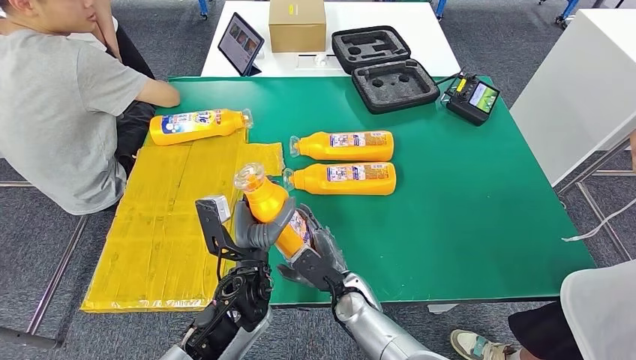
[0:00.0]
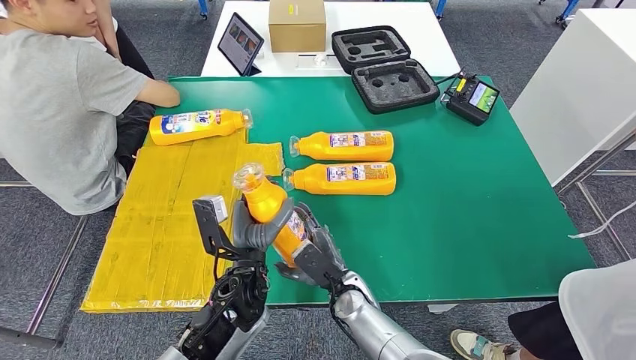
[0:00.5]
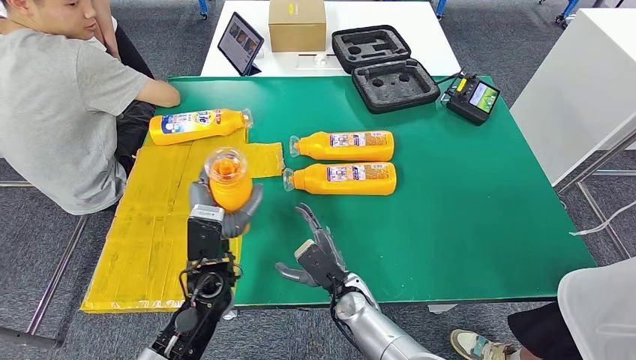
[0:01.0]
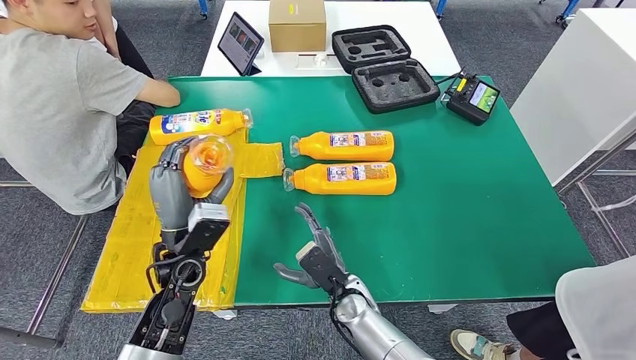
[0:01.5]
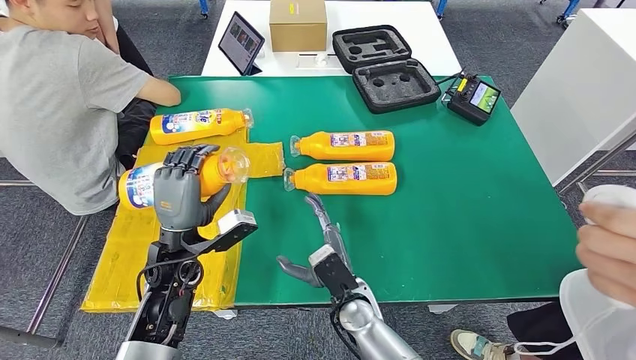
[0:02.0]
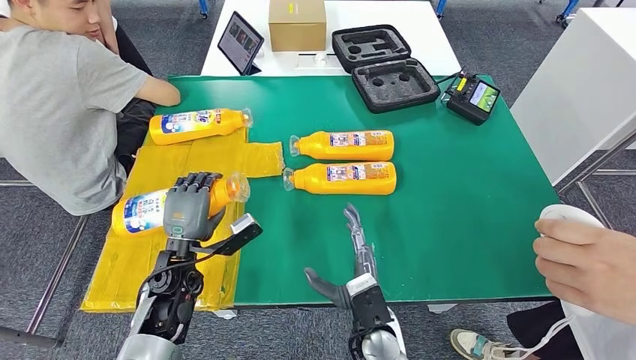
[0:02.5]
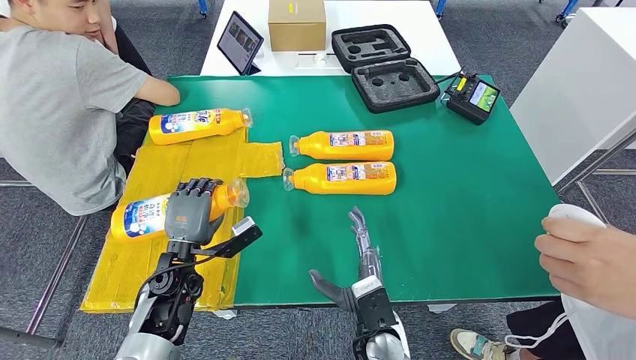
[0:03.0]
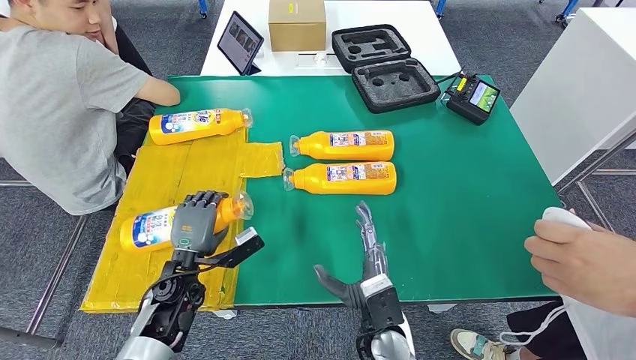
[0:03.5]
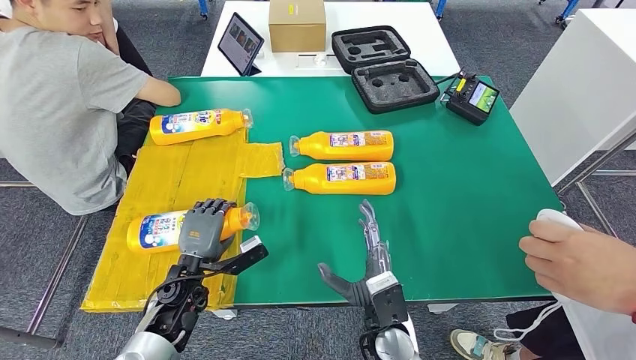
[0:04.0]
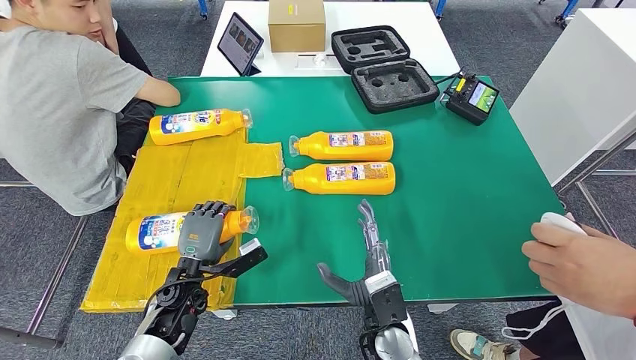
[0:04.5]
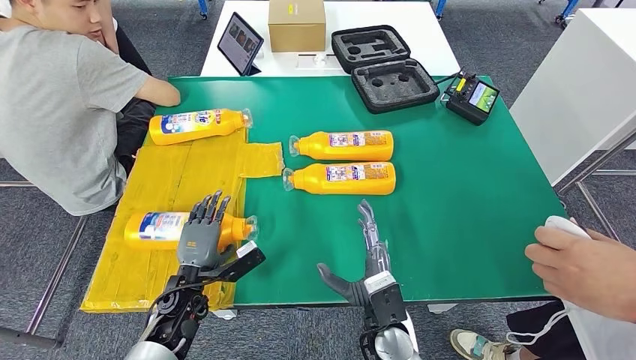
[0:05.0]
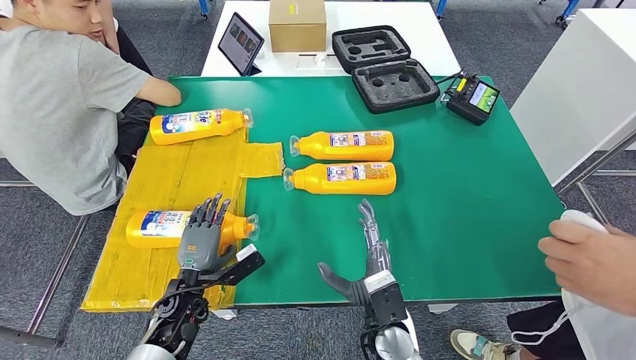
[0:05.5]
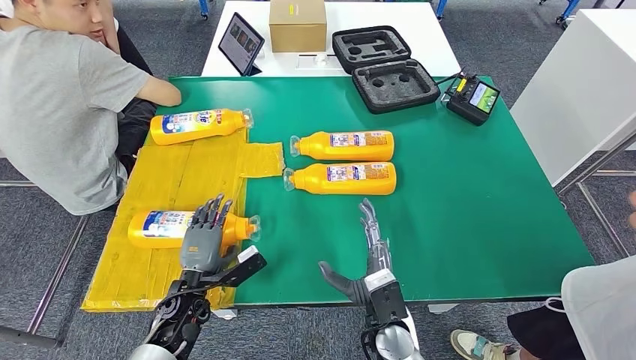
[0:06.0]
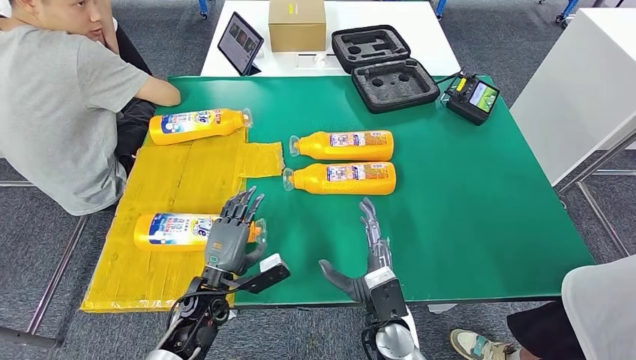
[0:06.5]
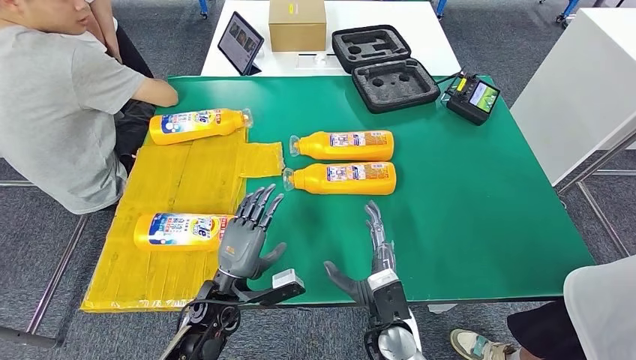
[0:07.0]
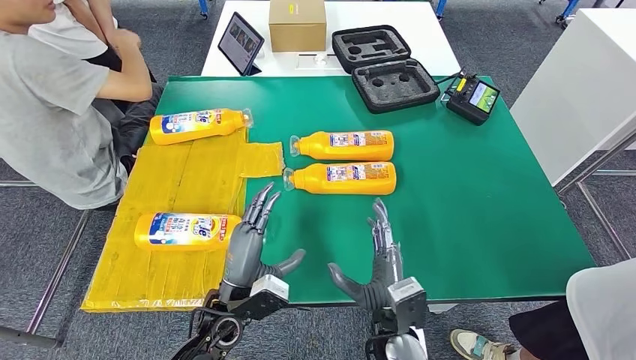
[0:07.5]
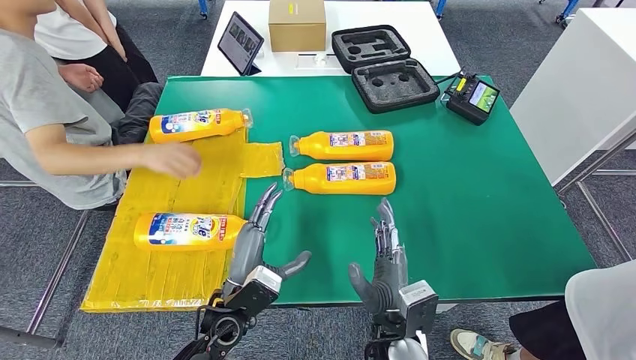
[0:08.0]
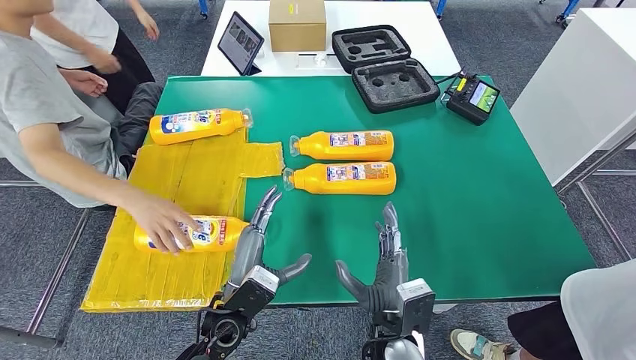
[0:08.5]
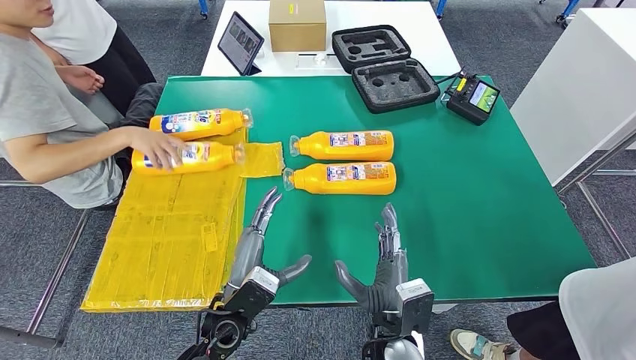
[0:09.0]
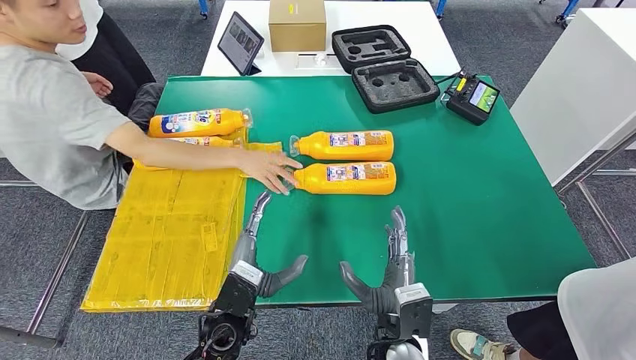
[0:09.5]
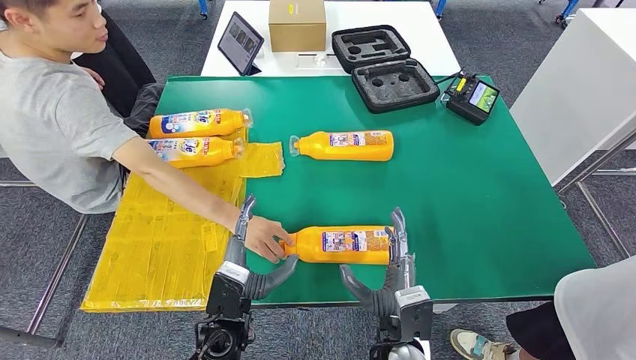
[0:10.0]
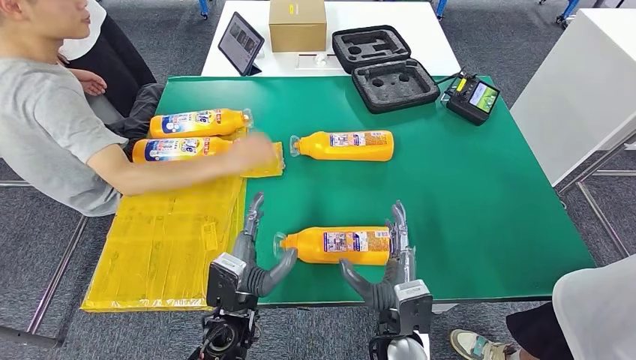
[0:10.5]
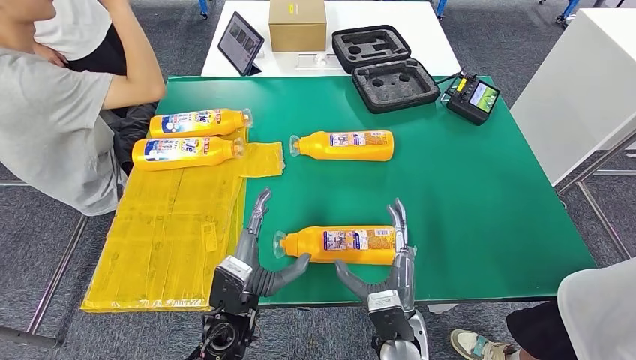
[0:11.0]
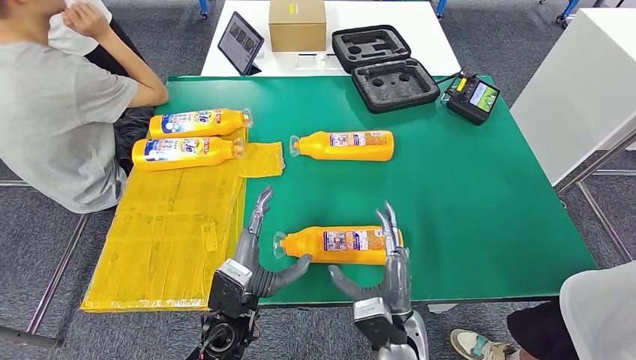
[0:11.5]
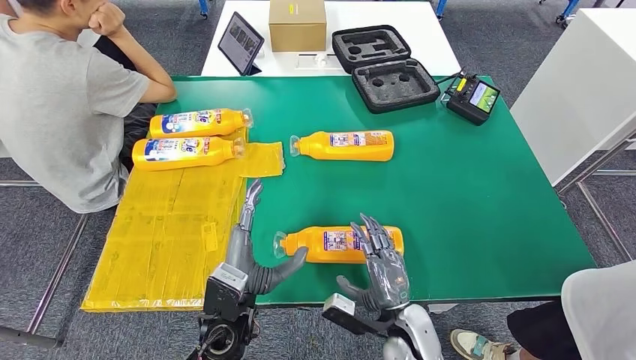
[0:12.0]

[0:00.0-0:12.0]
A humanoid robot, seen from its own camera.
Step, 0:00.0 to 0:06.5: Flip the fast-moving consumer goods bottle to the front side.
0:00.0 to 0:02.0: The left hand shifts about 15 cm to the left.
0:02.0 to 0:04.0: The left hand moves downward, some 10 cm, while the right hand goes approximately 5 cm to the right.
0:04.0 to 0:06.0: The hands make only small movements.
0:06.0 to 0:08.0: The left hand heads to the right and upward, covering about 15 cm.
0:08.0 to 0:10.0: The hands move only a little.
0:10.0 to 0:12.0: The right hand changes place by approximately 5 cm.

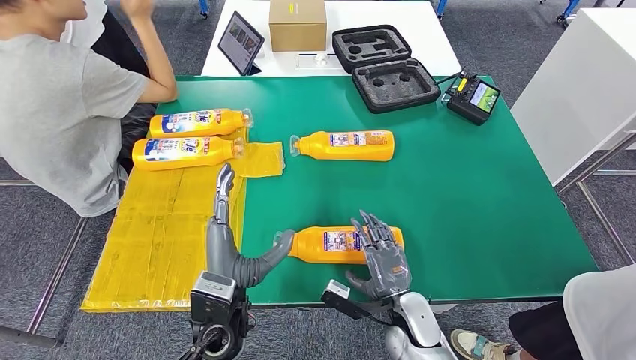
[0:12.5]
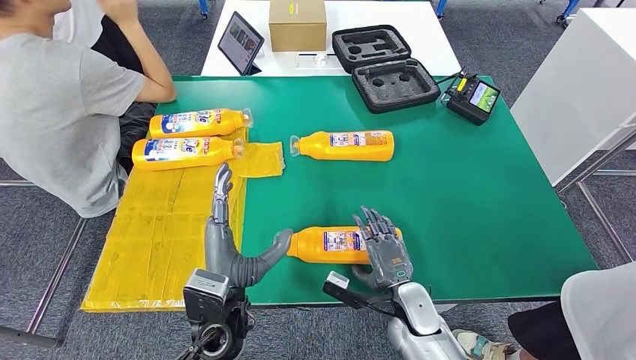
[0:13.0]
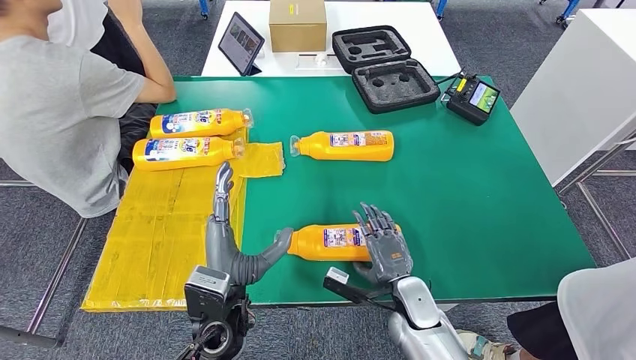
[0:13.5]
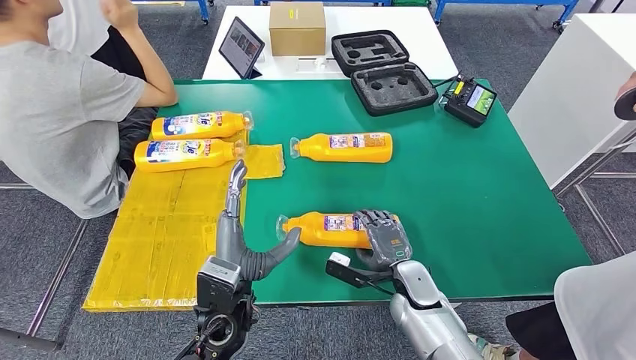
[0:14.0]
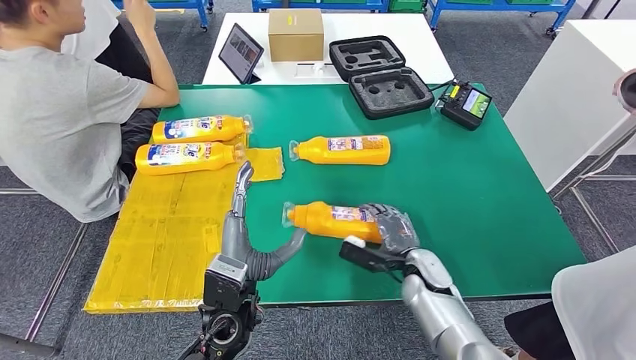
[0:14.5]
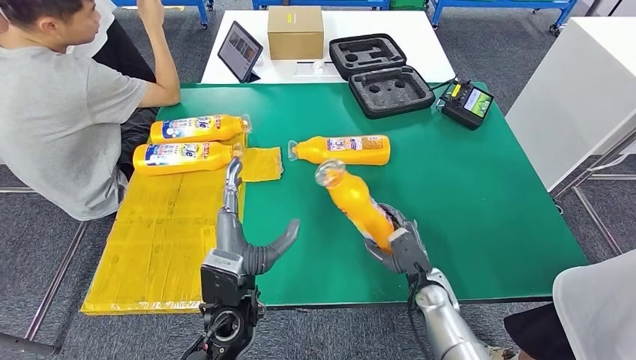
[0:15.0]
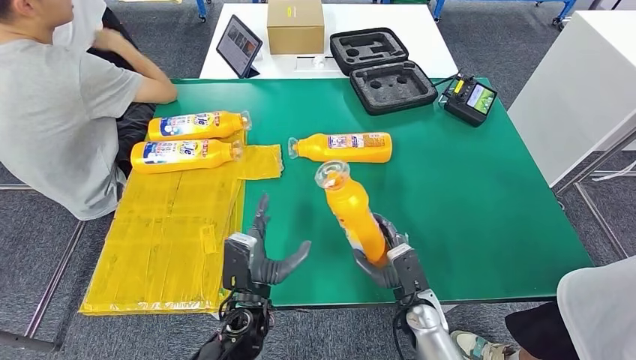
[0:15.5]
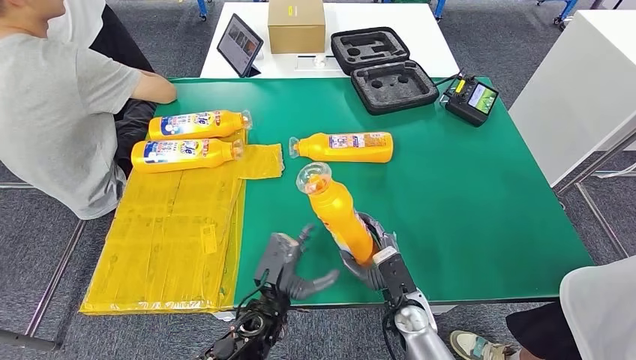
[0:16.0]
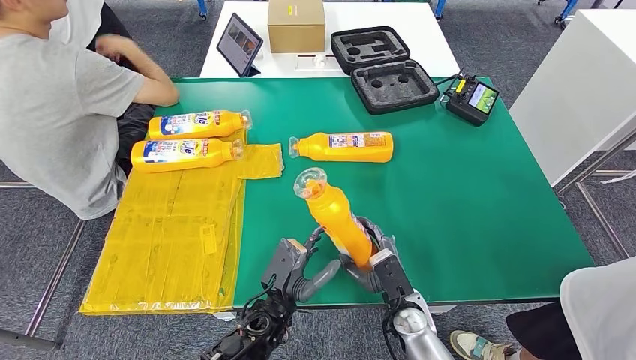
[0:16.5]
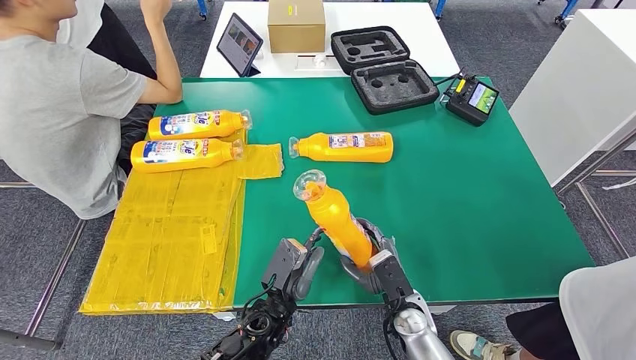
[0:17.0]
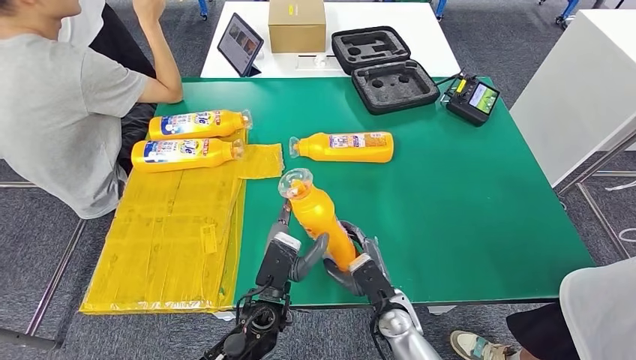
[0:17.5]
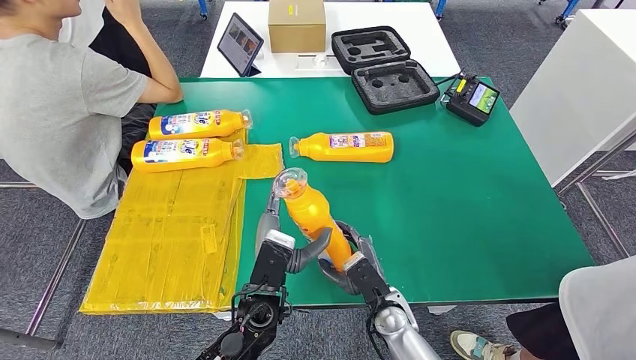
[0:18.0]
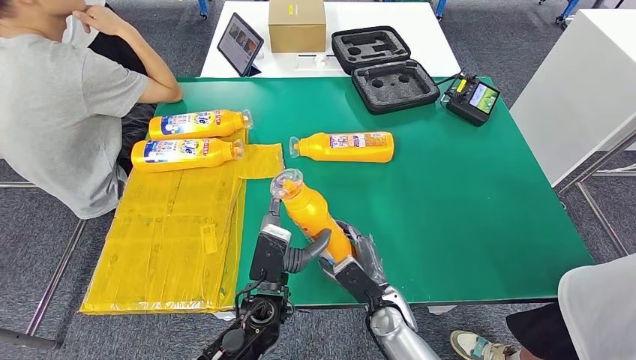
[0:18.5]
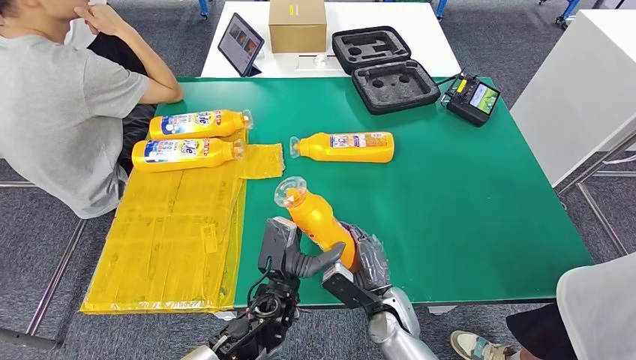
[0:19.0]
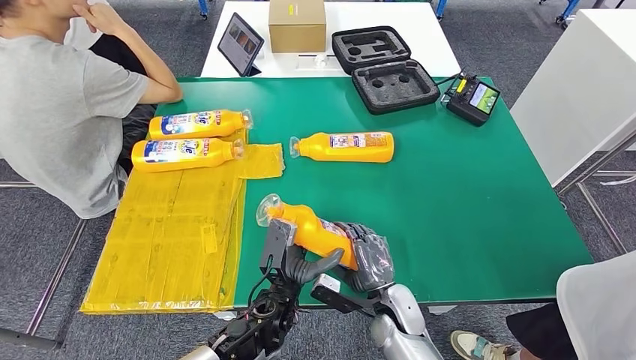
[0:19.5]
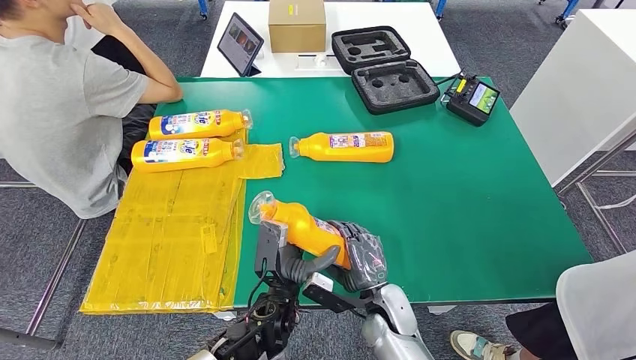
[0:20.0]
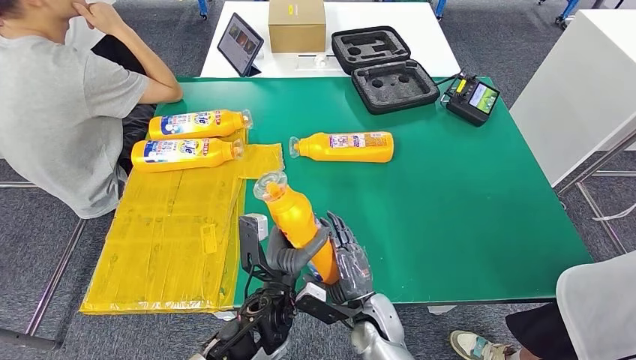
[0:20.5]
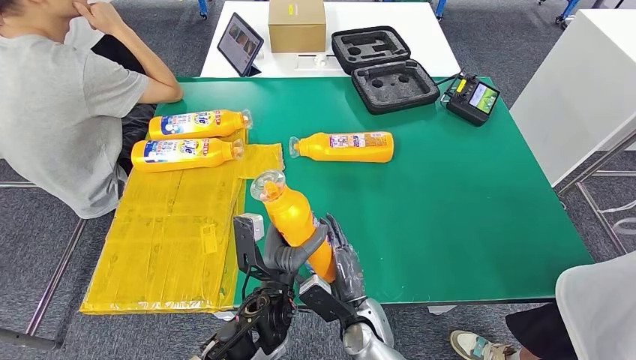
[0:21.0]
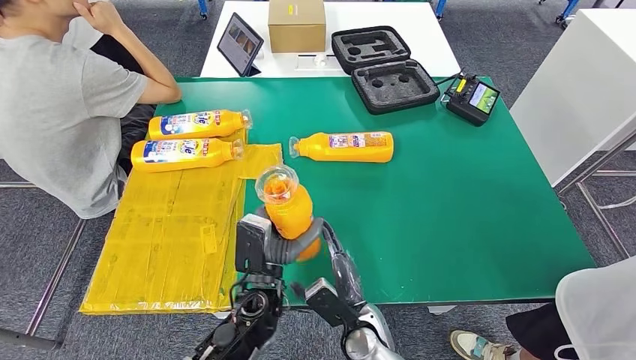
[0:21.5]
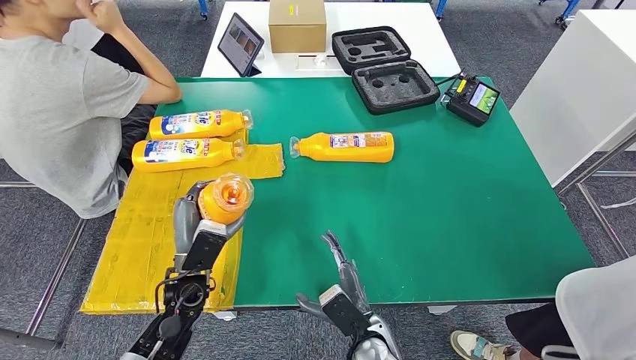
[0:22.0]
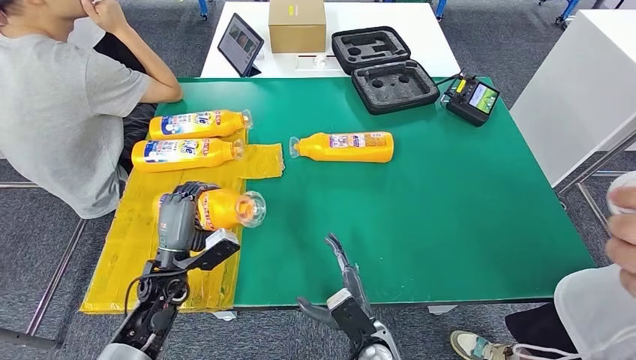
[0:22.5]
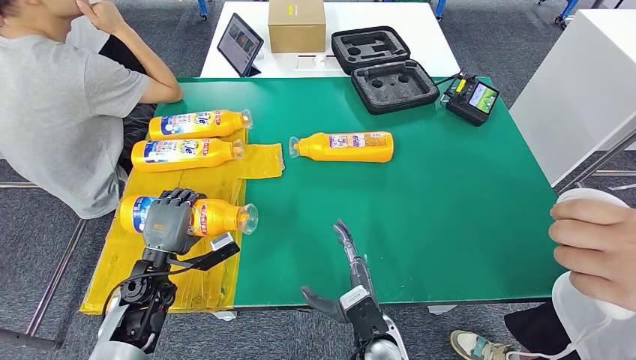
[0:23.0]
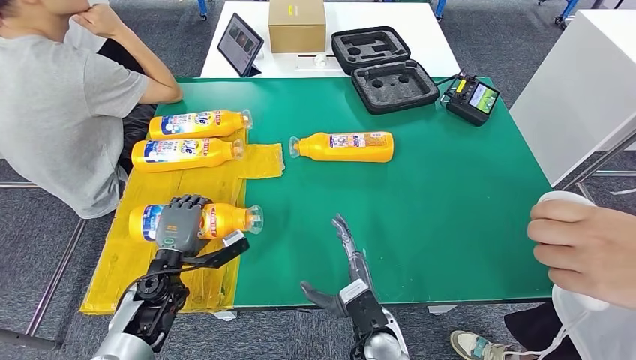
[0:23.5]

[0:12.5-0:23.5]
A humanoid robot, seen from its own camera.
Step, 0:12.5 to 0:17.5: Pick up the fast-moving consumer goods bottle from the table.
0:16.0 to 0:18.0: The left hand ends up some 5 cm from where it was.
0:20.0 to 0:21.5: The left hand moves about 5 cm. The right hand shifts by some 5 cm.
0:21.5 to 0:23.5: The left hand is displaced to the left by roughly 20 cm.
